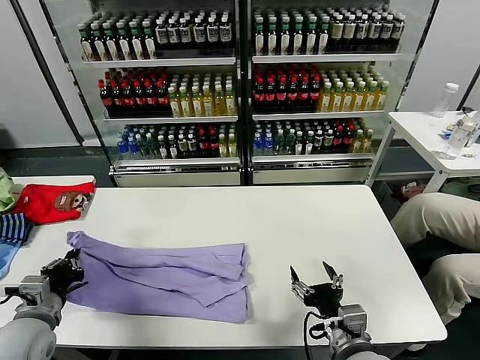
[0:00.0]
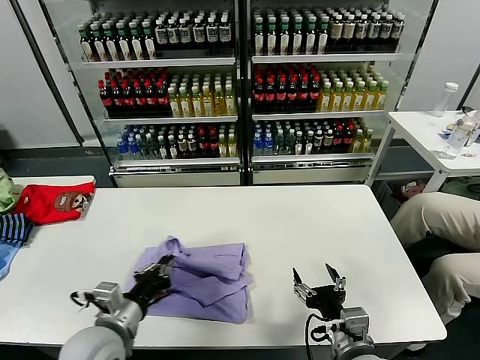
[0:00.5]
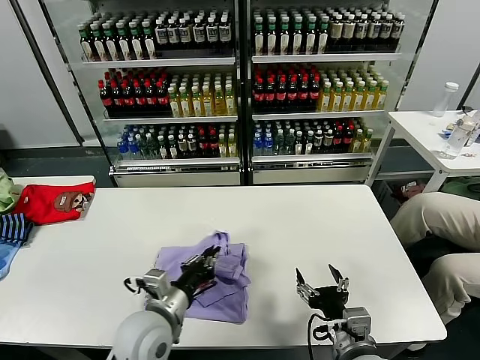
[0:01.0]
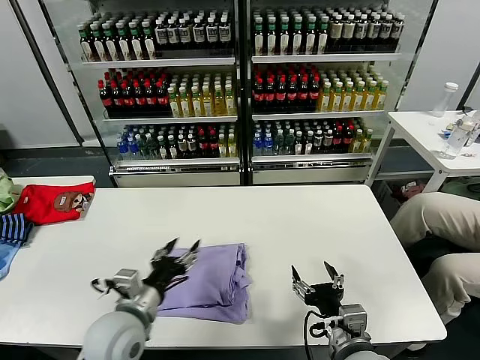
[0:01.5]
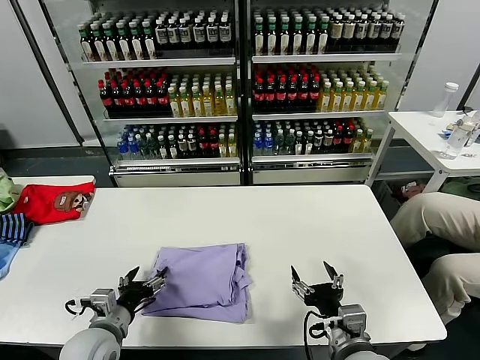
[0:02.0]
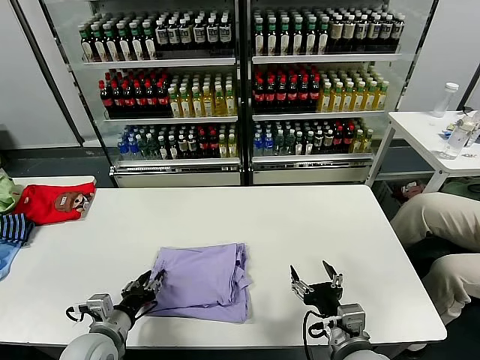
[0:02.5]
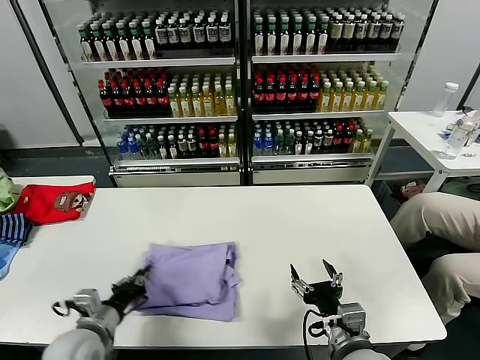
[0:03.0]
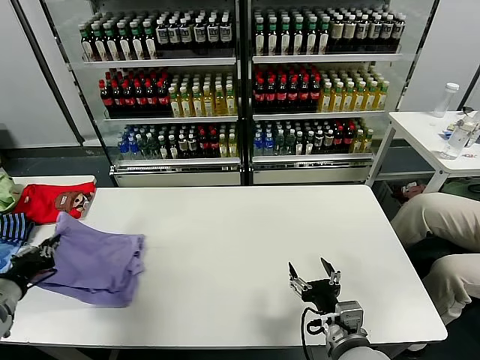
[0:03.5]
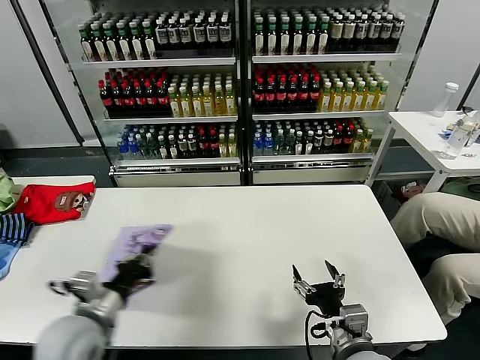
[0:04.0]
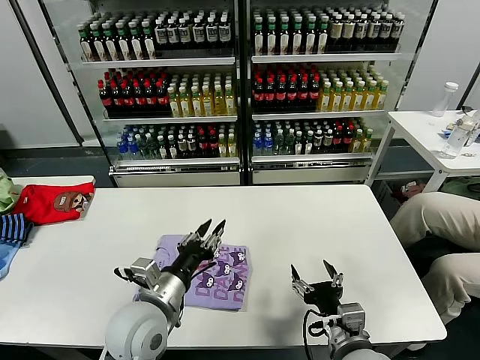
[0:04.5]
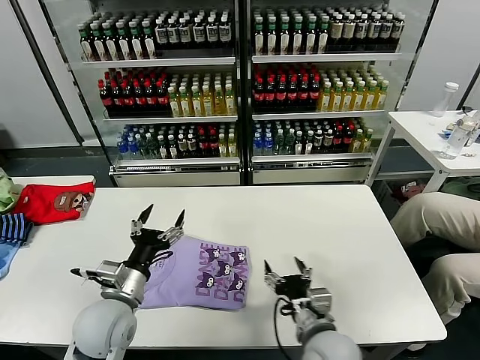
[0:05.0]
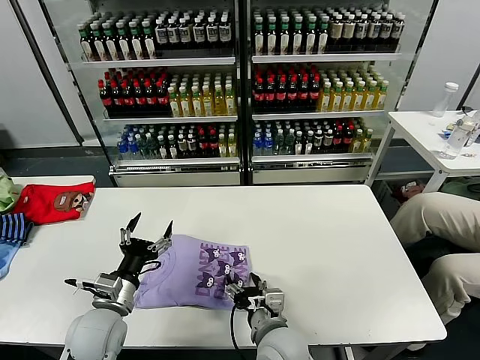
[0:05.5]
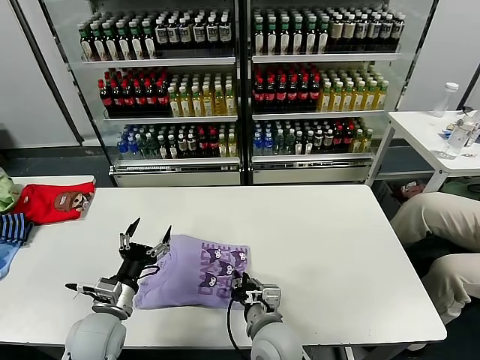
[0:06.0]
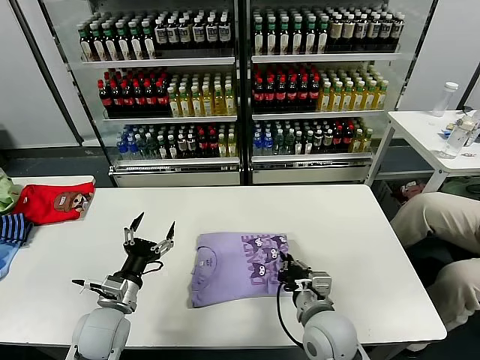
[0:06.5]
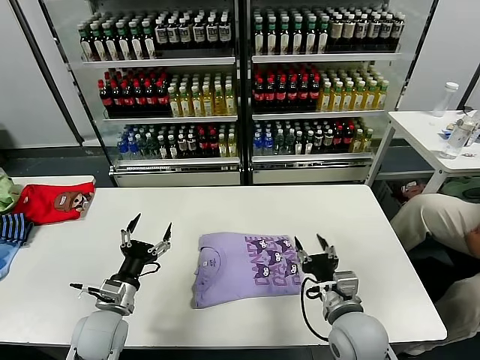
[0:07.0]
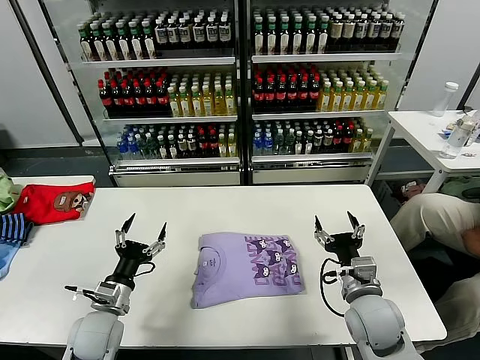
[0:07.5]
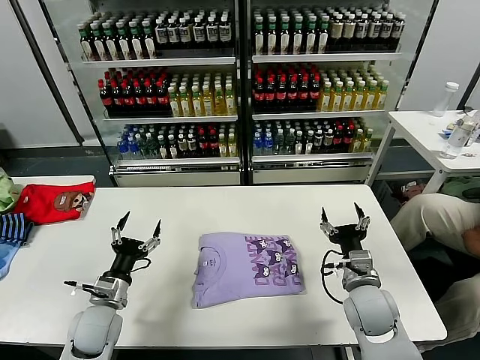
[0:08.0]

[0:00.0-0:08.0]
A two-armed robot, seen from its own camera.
Task of the whole recording: fold and organize the clothes.
Step, 0:00.0 to 0:01.5: use the left gripper to drag the left edge of the fabric to the left and folds it over the right edge.
Step, 0:02.0 to 0:04.5: Flip the folded clothes over with left gripper.
Step, 0:05.0 to 0:07.0: Drag the clothes to the center of the table.
0:00.0 to 0:02.0: The left gripper is displaced to the right and downward by approximately 10 cm, and opens its fingers.
0:02.0 to 0:04.0: The left gripper heads upward, covering some 10 cm, reaches some 15 cm to the left, then returns, and closes.
0:04.0 to 0:06.0: The left gripper shifts about 5 cm downward, moves some 10 cm to the right and comes back, and opens. The right gripper is displaced to the left and forward by approximately 15 cm, and closes.
0:06.0 to 0:08.0: The left gripper moves some 5 cm. Meanwhile the right gripper heads to the right, covering roughly 20 cm, and opens its fingers.

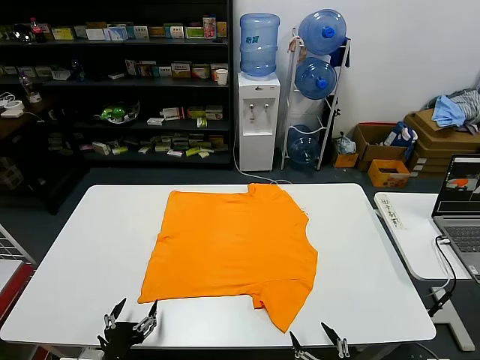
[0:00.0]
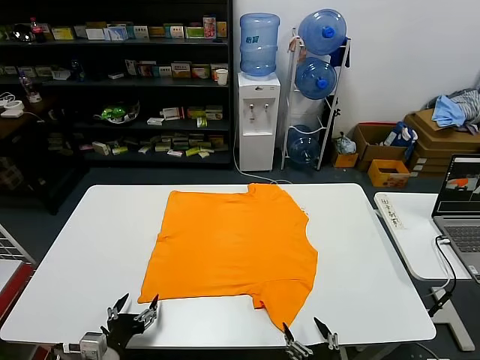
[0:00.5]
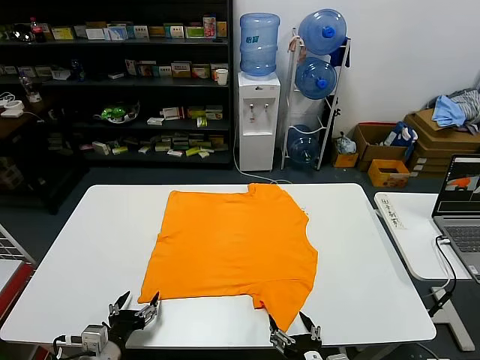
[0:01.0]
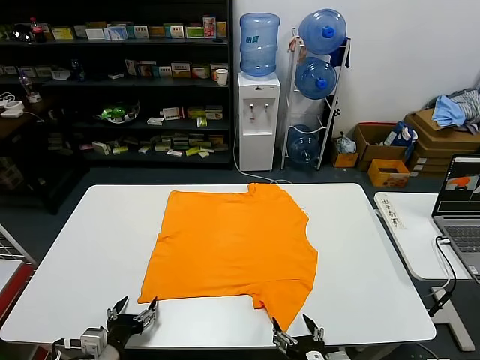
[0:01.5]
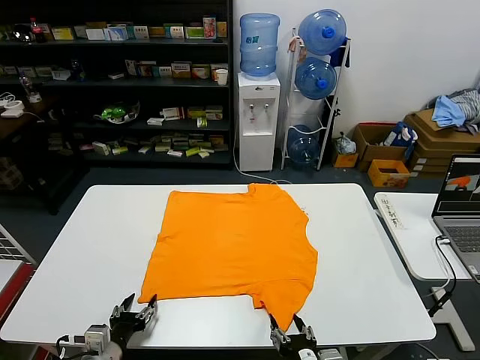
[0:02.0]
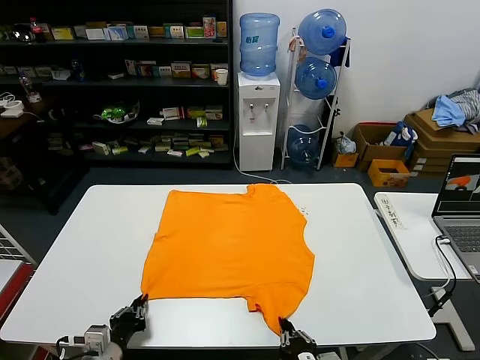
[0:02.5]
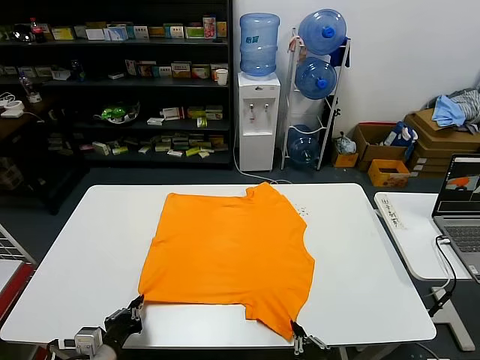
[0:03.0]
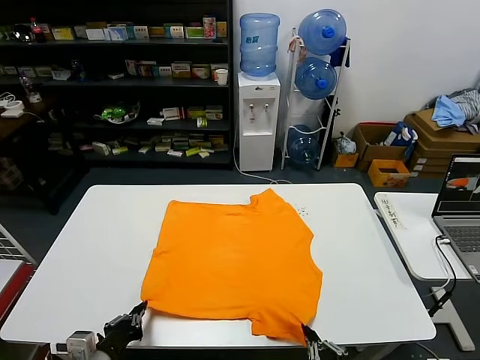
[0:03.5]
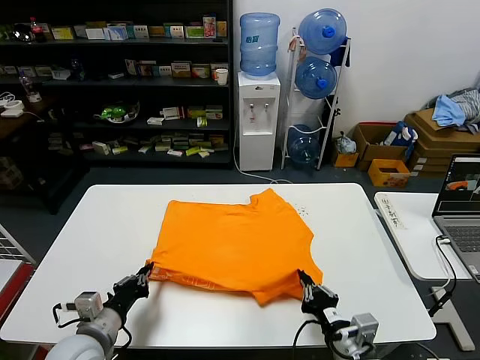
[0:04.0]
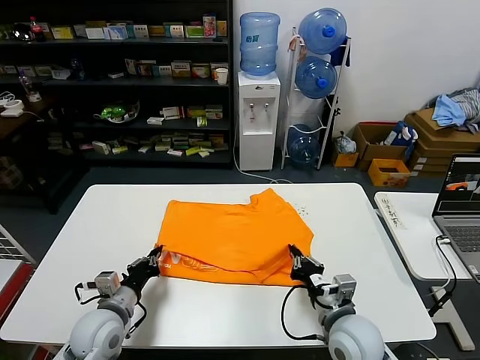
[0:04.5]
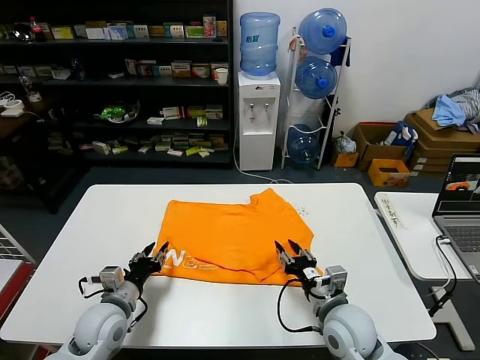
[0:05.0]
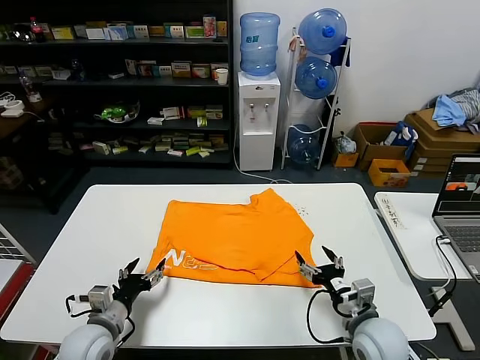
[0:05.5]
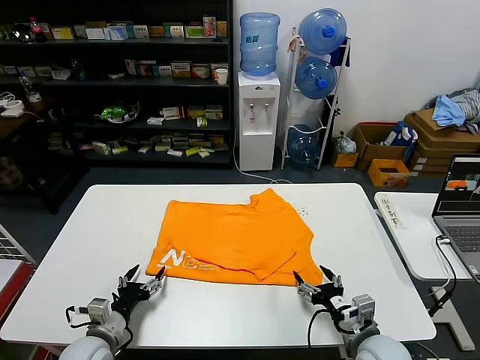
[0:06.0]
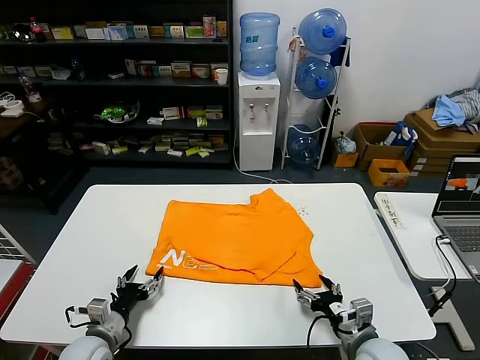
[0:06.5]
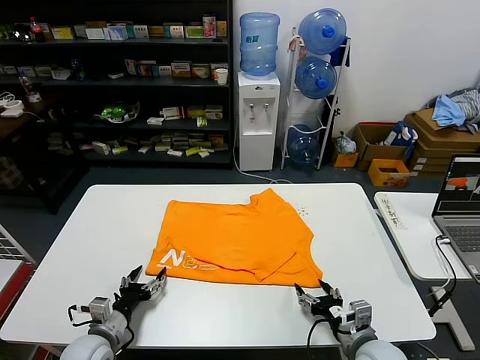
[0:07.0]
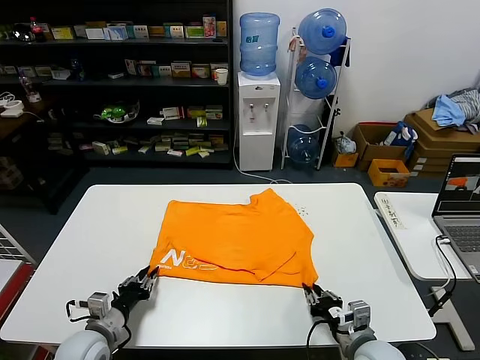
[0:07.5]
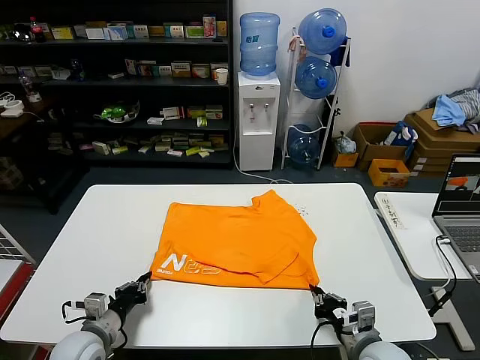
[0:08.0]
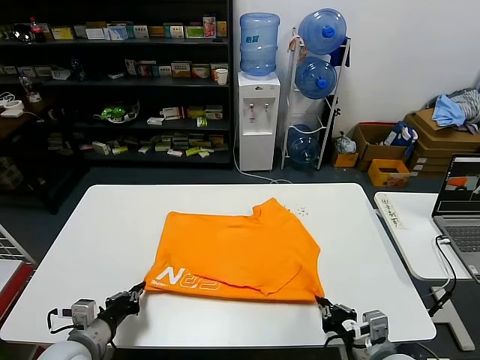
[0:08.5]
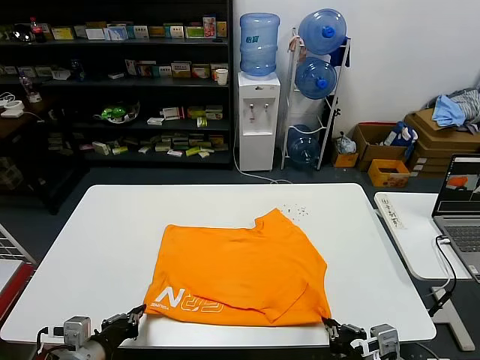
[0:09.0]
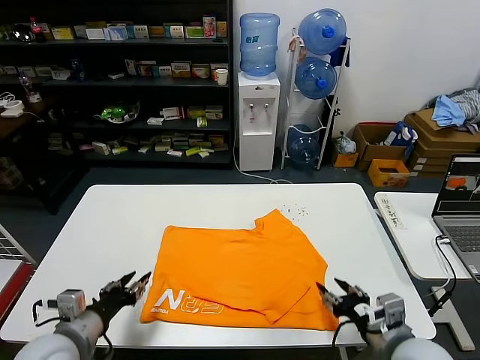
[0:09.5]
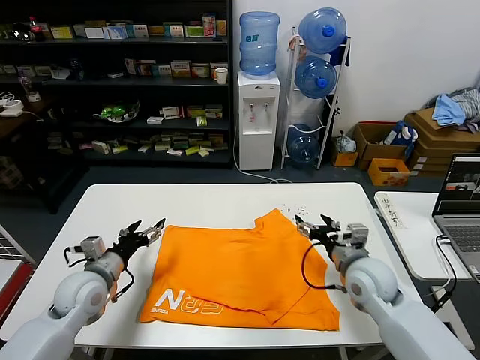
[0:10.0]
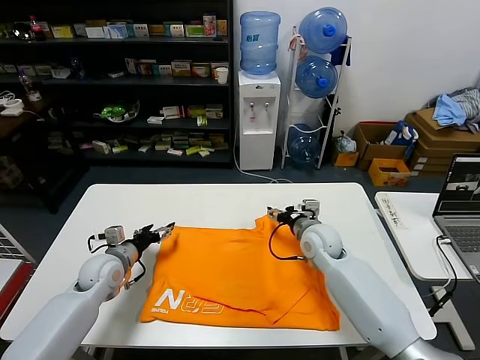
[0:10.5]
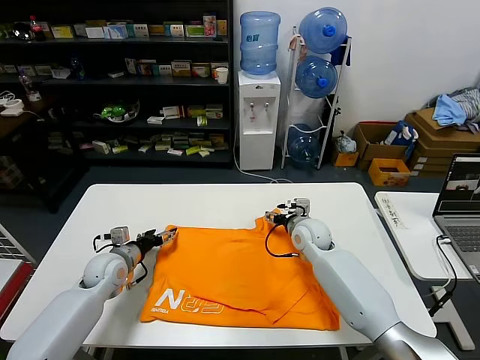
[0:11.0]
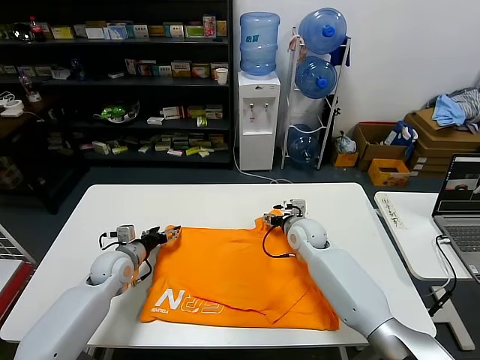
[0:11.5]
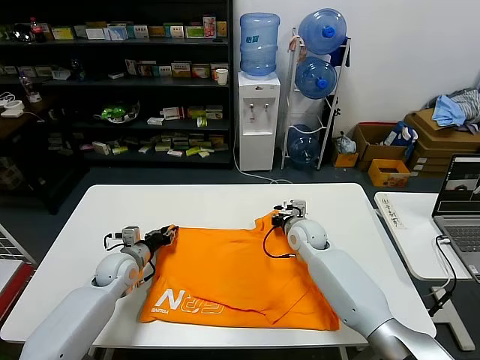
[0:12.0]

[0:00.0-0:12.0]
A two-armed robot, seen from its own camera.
Task of the whole recording: fold and organize the clothes.
Step, 0:00.0 to 0:02.5: use both grippers simultaneously to clamp the lower edge of the clothing fabric.
Step, 0:03.0 to 0:05.0: use both grippers to drag the lower edge of the fabric forward and fold it over the upper edge.
Step, 0:05.5 to 0:09.0: Drag the clothes downward with both gripper.
0:02.0 to 0:04.0: The right gripper goes roughly 10 cm to the right and upward, and closes up; the left gripper moves upward, roughly 5 cm, and closes up.
0:04.0 to 0:06.0: The left gripper shifts approximately 10 cm downward, and opens up; the right gripper heads forward, covering roughly 5 cm, and opens up.
0:06.0 to 0:08.0: The right gripper closes its fingers; the left gripper closes up.
0:08.0 to 0:10.0: The left gripper is displaced upward and forward by roughly 10 cm, and opens. The right gripper shifts some 15 cm forward and upward, and opens its fingers.
0:10.0 to 0:12.0: The right gripper moves forward, to the left and downward, roughly 20 cm, and closes, while the left gripper goes some 15 cm forward and downward, and closes its fingers.

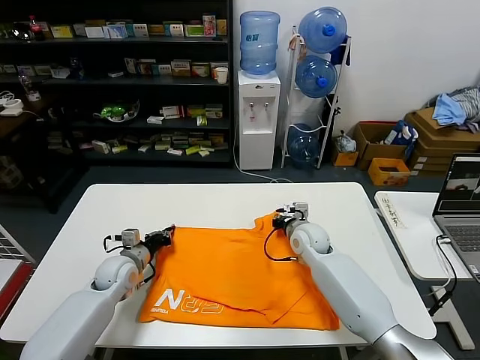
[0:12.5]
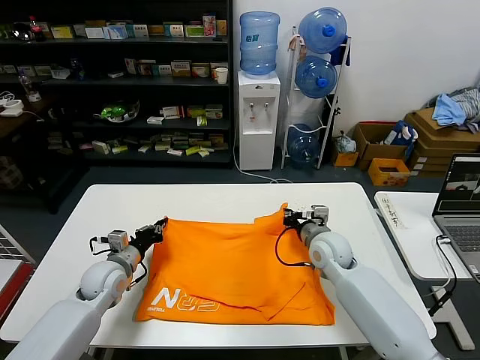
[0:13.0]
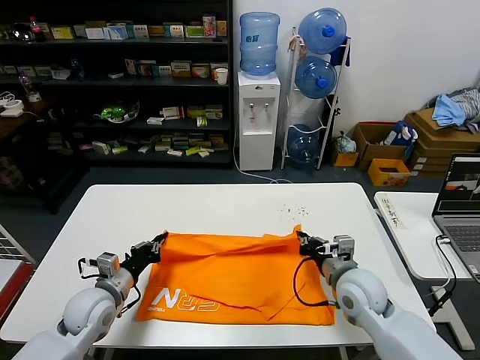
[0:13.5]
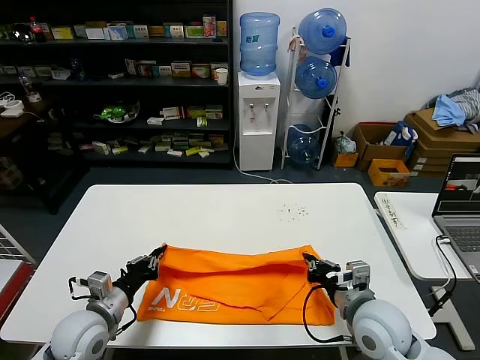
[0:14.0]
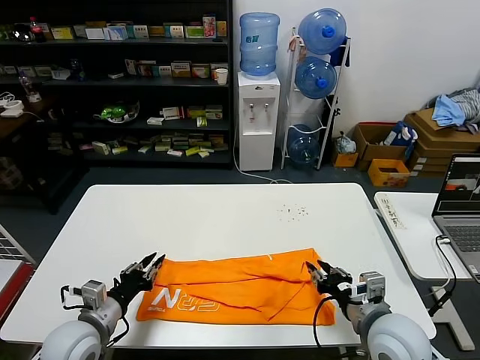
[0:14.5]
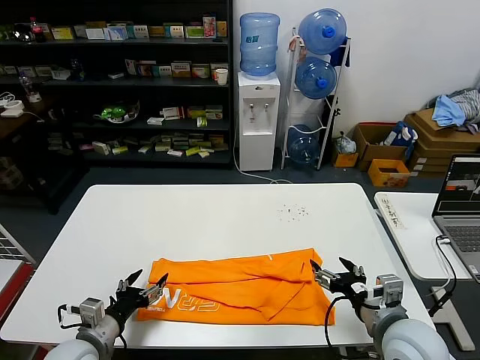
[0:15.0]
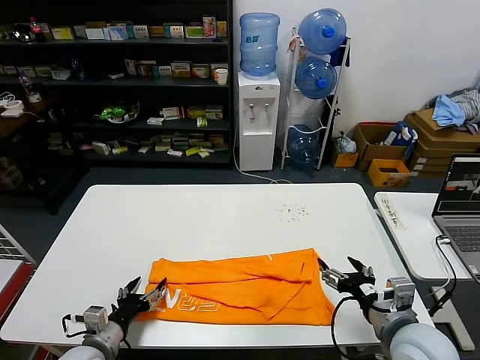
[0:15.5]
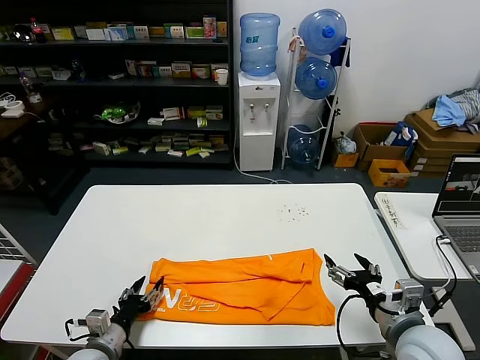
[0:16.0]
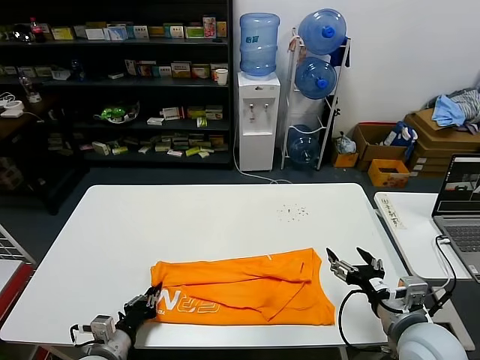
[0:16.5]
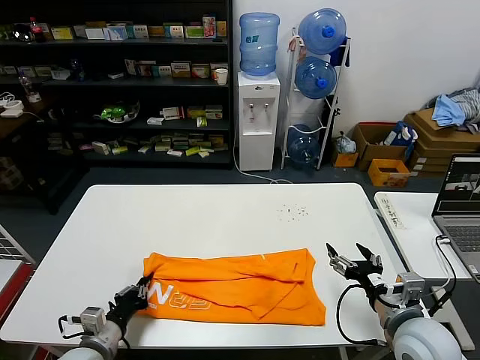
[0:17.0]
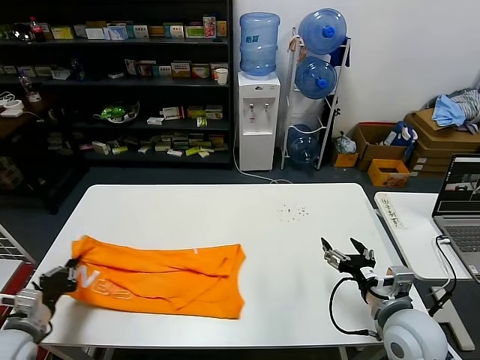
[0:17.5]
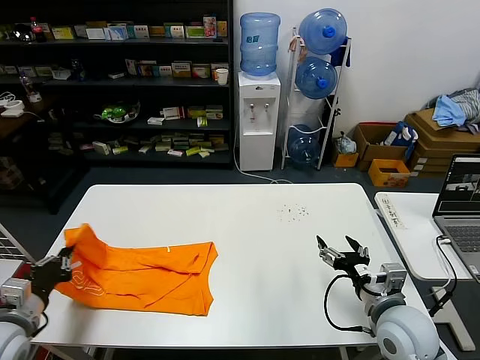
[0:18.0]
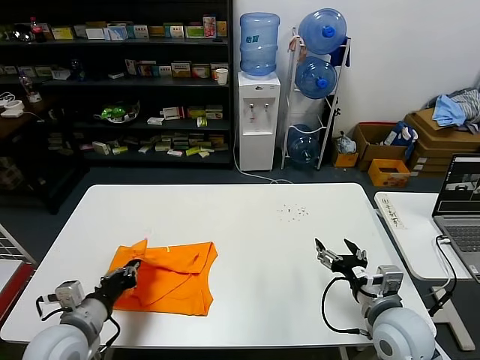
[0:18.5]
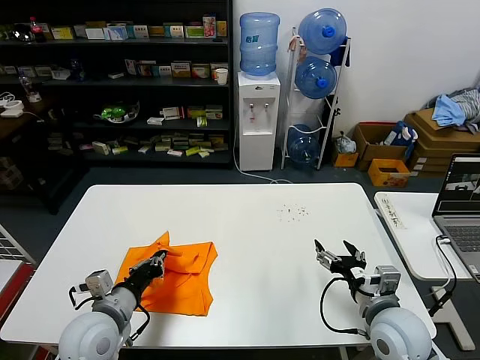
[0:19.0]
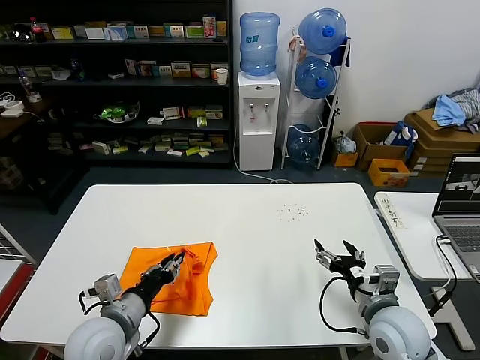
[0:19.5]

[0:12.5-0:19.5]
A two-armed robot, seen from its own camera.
Task of the whole recording: fold and organize the clothes.
Step, 0:13.0 to 0:14.5: use both grippers to drag the upper edge of the fabric backward and fold it over the lower edge.
Step, 0:15.0 to 0:16.5: use the left gripper to clamp the left edge of the fabric.
0:12.5 to 0:14.5: The two grippers go about 20 cm backward. The right gripper opens.
0:14.5 to 0:16.0: The right gripper opens up; the left gripper shifts roughly 10 cm downward, and opens.
0:16.0 to 0:17.5: The left gripper shifts about 15 cm to the left and upward, and closes.
0:17.5 to 0:19.5: The left gripper is displaced to the right by roughly 15 cm, and opens.
